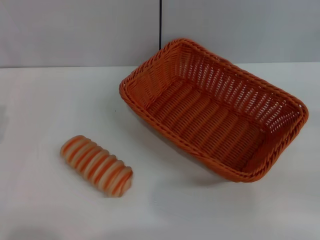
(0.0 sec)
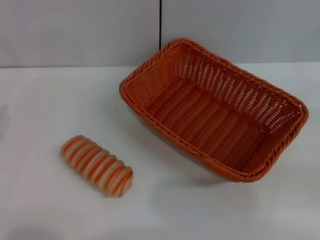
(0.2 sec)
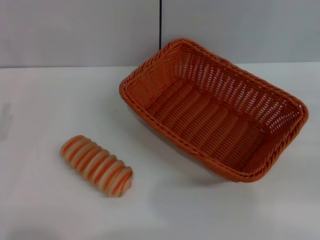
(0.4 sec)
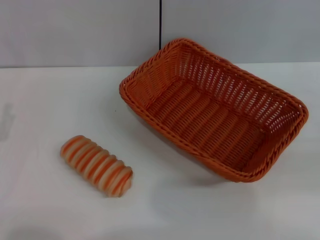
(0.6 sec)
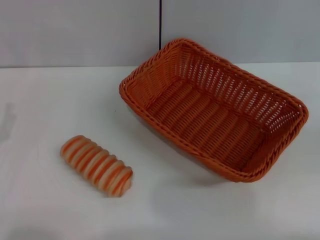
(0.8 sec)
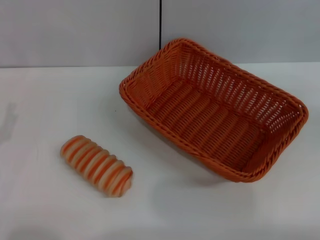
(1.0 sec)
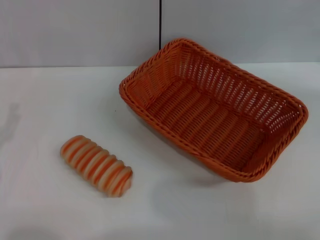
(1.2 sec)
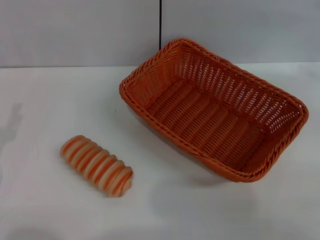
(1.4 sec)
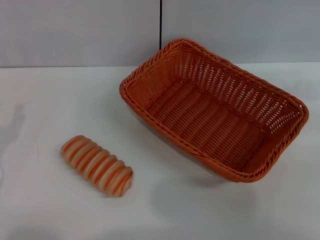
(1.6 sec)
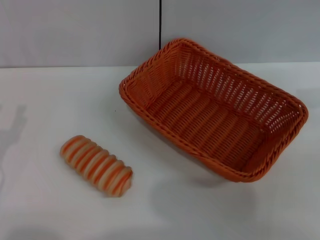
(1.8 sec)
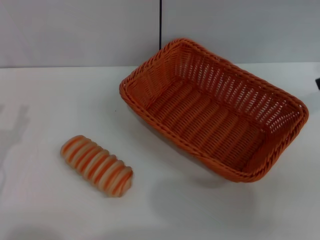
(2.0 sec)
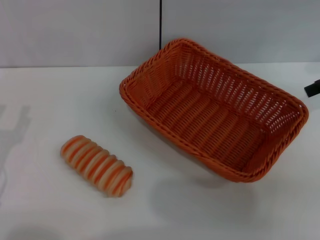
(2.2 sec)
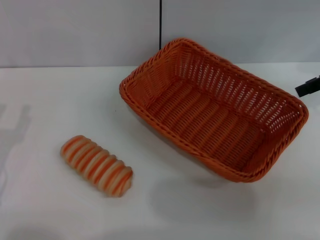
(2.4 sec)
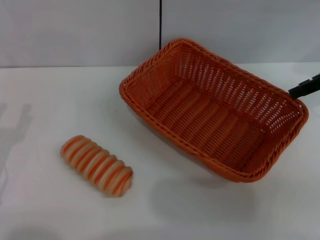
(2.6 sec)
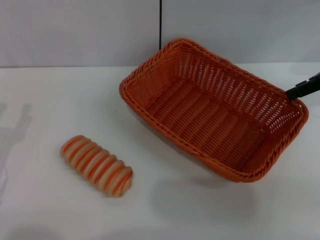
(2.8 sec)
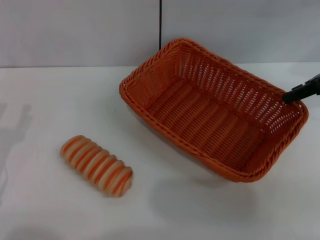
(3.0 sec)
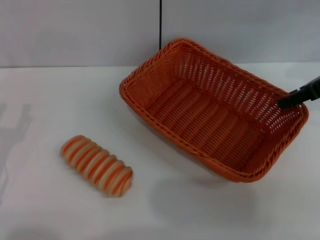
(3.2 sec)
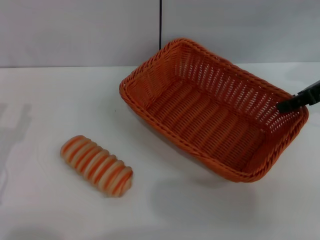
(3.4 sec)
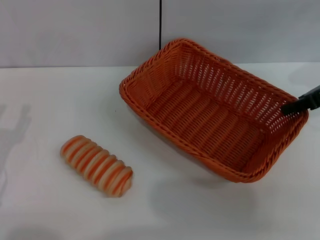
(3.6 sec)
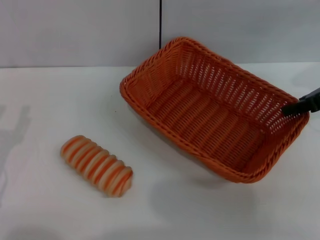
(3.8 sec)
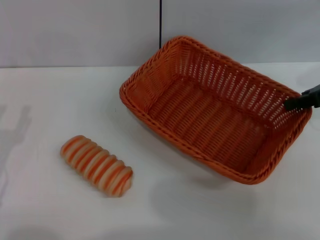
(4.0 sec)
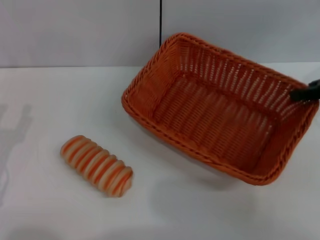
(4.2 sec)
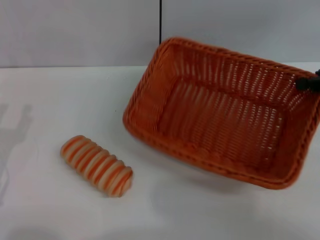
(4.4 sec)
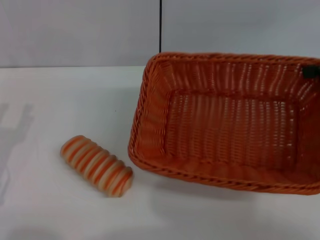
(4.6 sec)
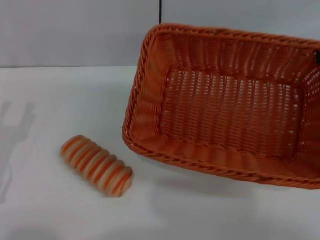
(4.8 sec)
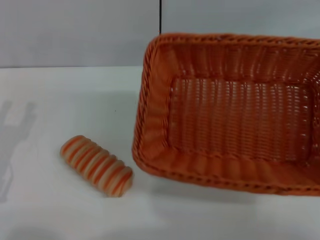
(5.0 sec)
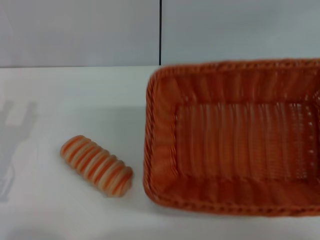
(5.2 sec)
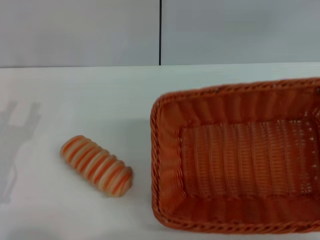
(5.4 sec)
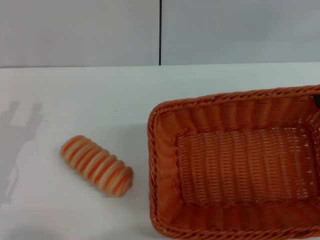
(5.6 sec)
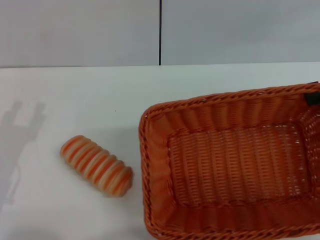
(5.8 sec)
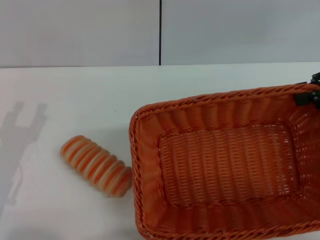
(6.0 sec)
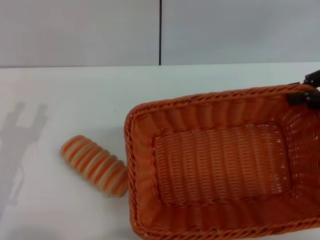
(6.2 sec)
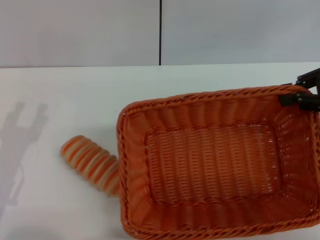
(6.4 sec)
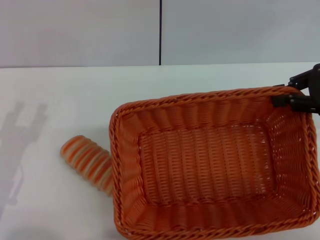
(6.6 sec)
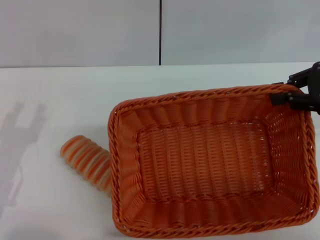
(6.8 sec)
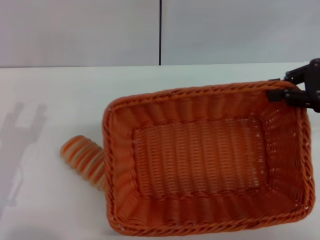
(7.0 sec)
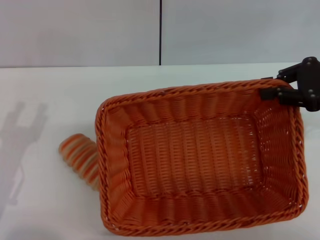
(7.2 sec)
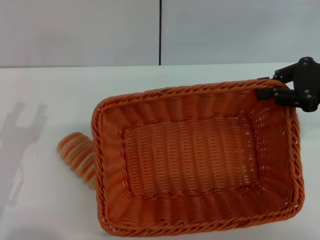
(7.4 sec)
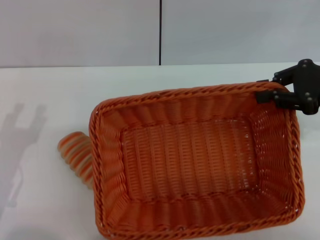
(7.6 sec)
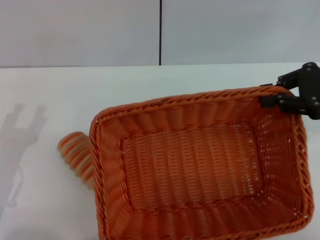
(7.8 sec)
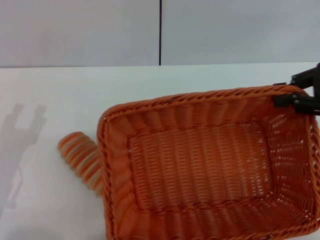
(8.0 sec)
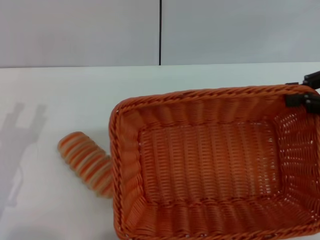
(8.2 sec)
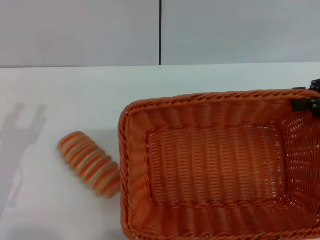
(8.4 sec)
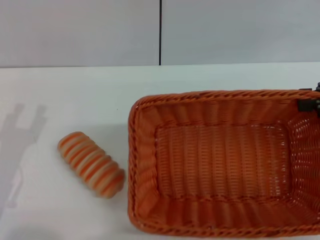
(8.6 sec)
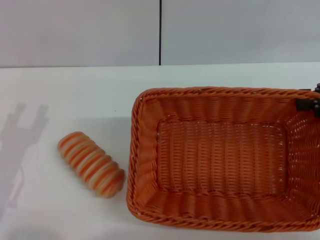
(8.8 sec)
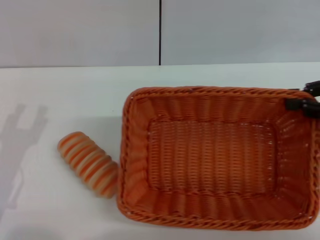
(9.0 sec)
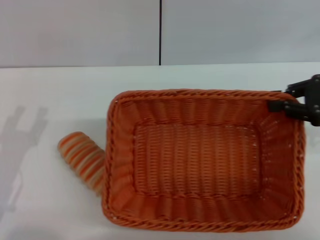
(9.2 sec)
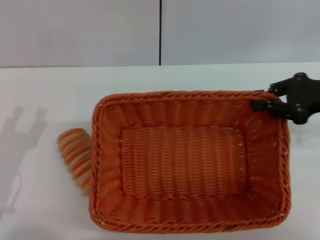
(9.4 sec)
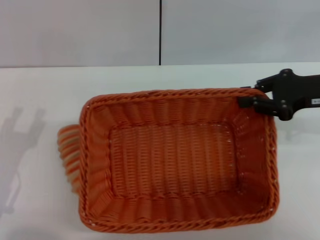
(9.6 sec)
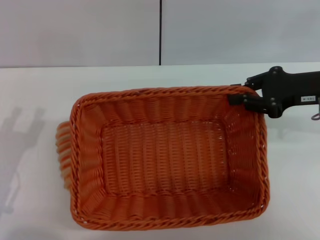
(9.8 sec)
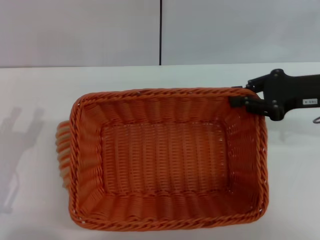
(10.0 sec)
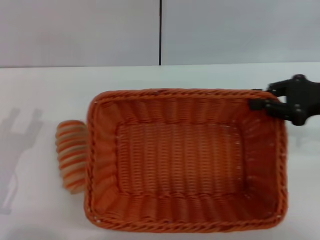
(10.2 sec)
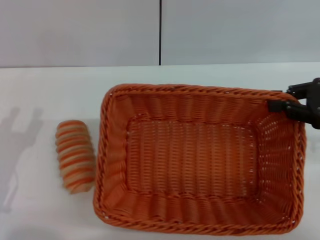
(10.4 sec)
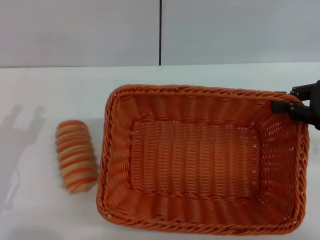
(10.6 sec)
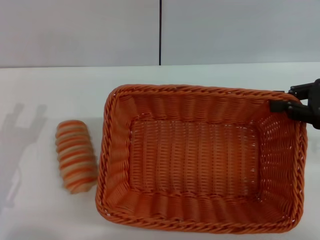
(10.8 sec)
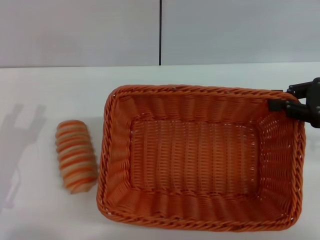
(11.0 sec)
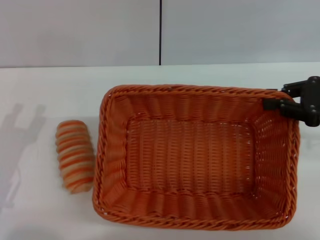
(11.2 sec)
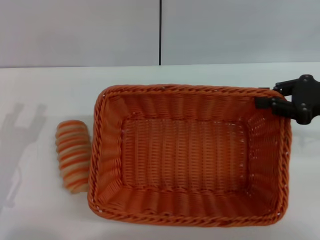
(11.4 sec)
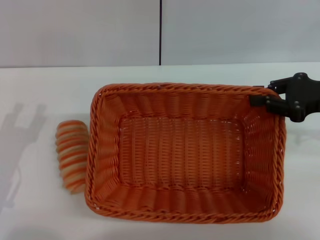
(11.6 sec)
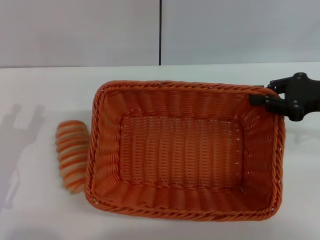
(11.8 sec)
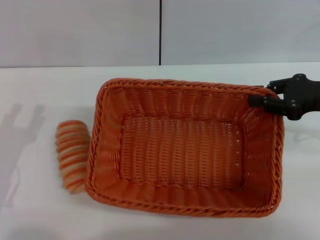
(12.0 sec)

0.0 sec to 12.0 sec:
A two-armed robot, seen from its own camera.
Step, 0.0 sec to 4.6 sec: Pick up the light basket with the right gripper.
0.0 sec to 1.6 sec: The right gripper moves forward and upward, approximately 15 cm.
1.6 sec to 3.0 sec: The right gripper moves to the left, about 5 cm.
3.0 sec to 4.4 sec: The right gripper moves roughly 5 cm, and closes.
6.0 sec to 7.6 sec: There are only small adjustments of the grippers.
7.6 sec to 9.0 sec: The right gripper shifts by about 5 cm.
10.4 sec to 12.0 sec: There are only small adjustments of the grippers.

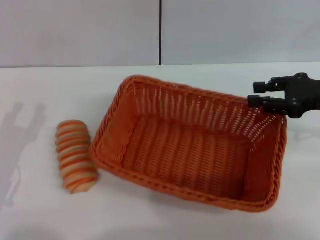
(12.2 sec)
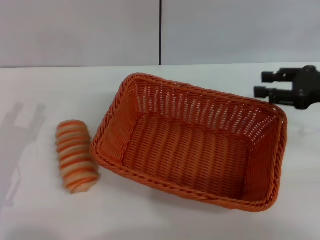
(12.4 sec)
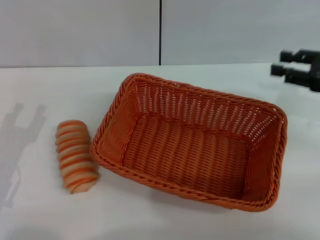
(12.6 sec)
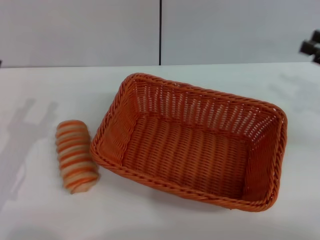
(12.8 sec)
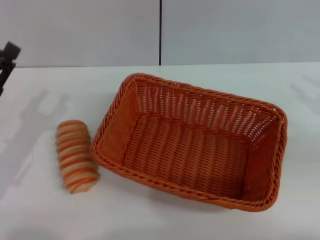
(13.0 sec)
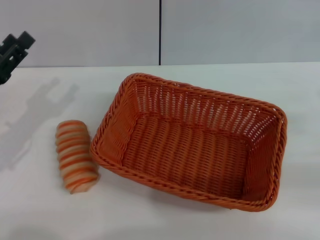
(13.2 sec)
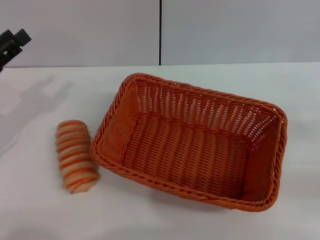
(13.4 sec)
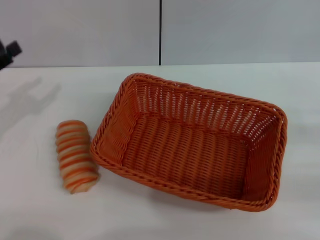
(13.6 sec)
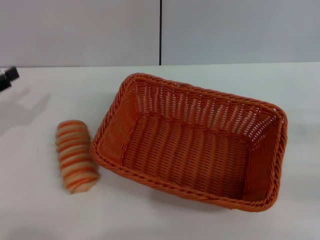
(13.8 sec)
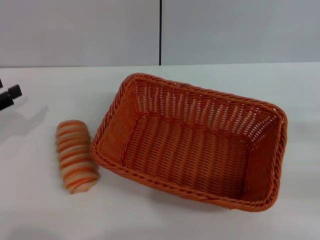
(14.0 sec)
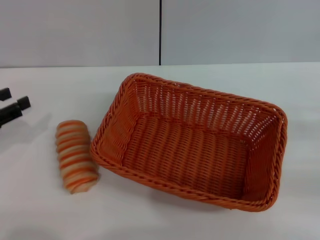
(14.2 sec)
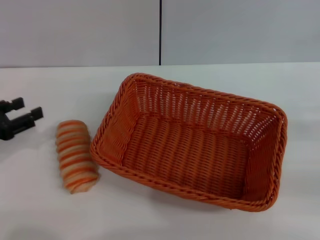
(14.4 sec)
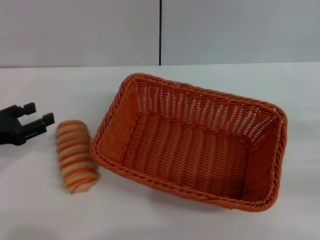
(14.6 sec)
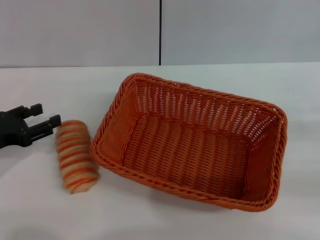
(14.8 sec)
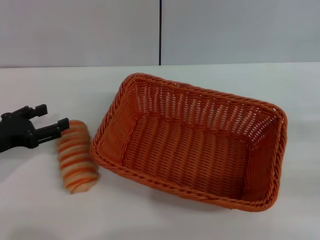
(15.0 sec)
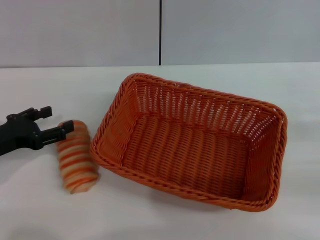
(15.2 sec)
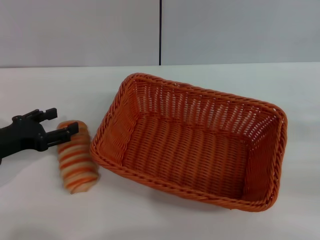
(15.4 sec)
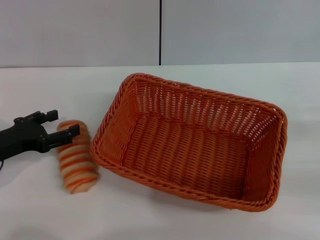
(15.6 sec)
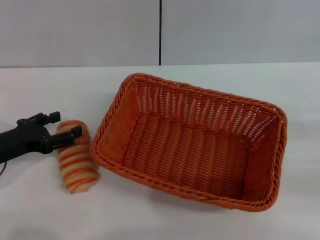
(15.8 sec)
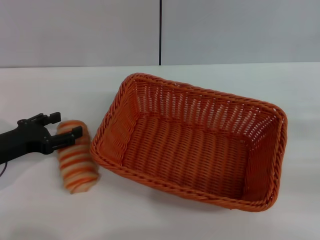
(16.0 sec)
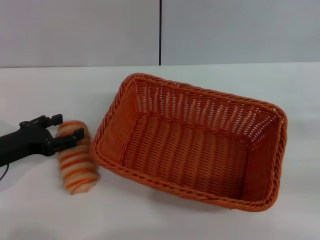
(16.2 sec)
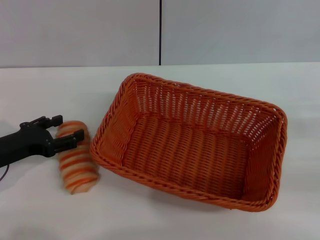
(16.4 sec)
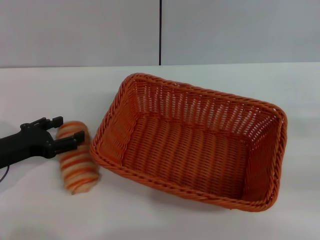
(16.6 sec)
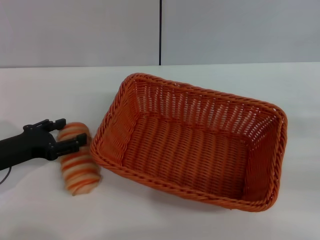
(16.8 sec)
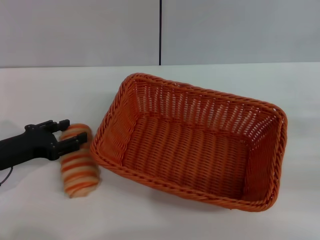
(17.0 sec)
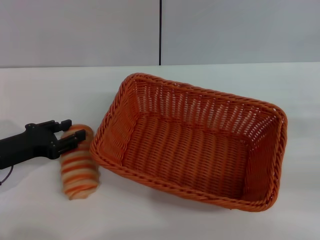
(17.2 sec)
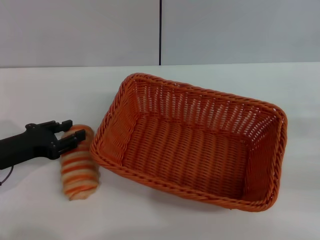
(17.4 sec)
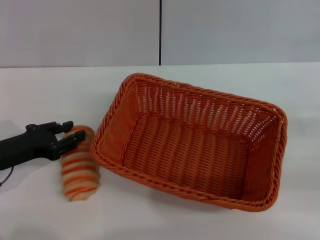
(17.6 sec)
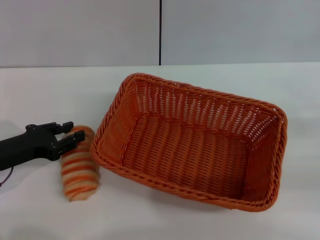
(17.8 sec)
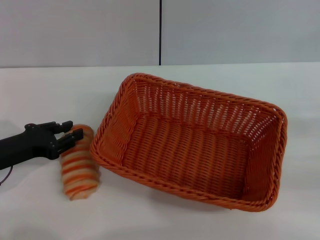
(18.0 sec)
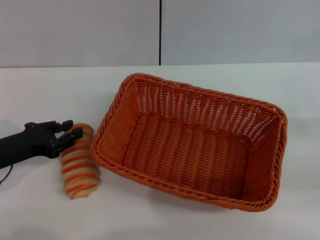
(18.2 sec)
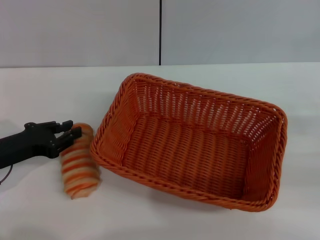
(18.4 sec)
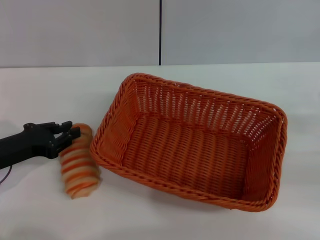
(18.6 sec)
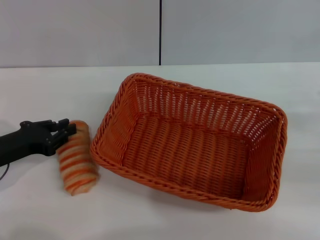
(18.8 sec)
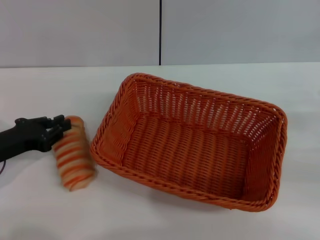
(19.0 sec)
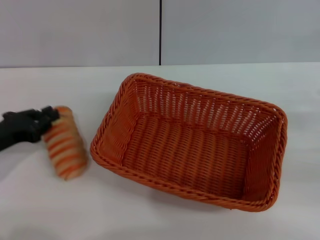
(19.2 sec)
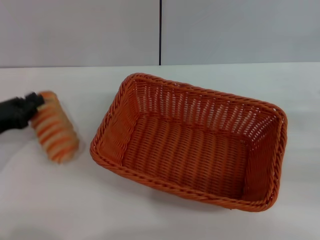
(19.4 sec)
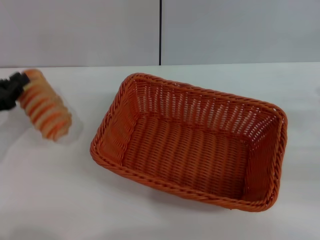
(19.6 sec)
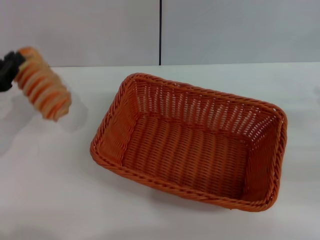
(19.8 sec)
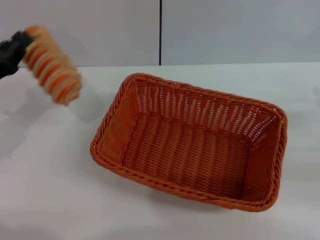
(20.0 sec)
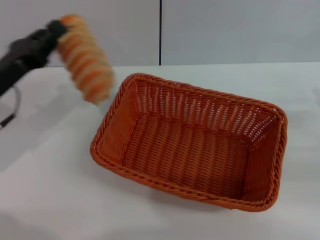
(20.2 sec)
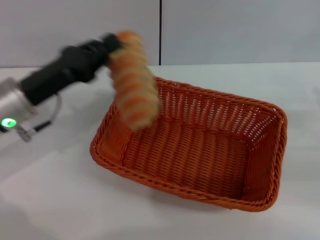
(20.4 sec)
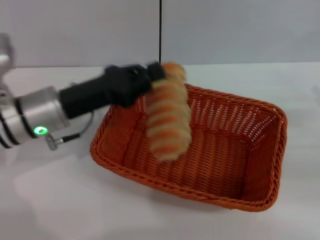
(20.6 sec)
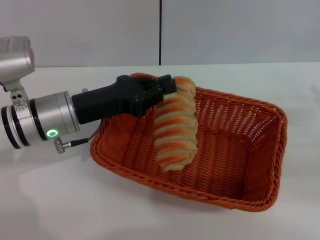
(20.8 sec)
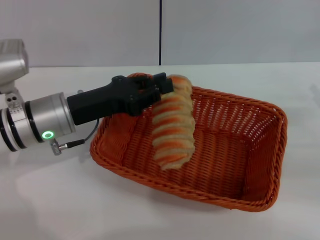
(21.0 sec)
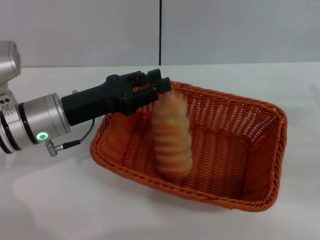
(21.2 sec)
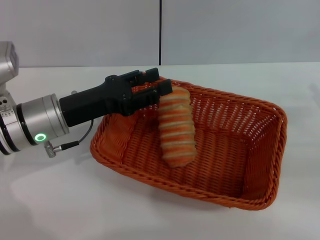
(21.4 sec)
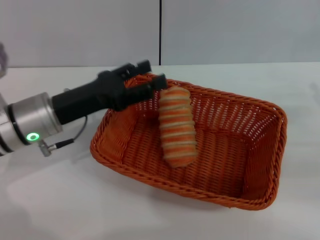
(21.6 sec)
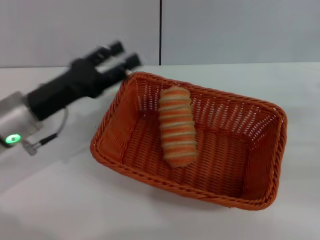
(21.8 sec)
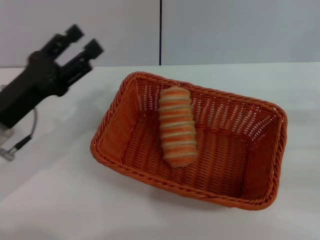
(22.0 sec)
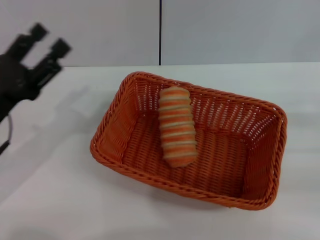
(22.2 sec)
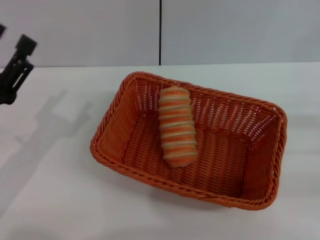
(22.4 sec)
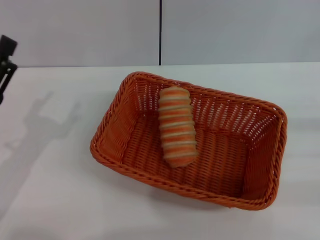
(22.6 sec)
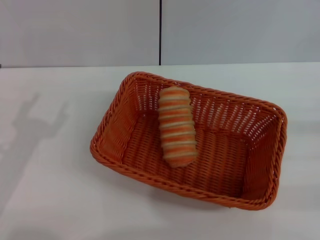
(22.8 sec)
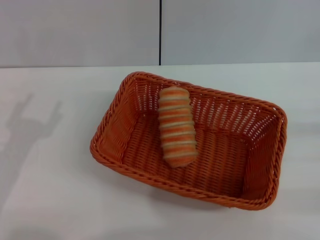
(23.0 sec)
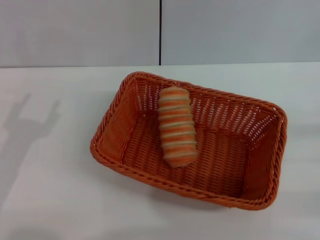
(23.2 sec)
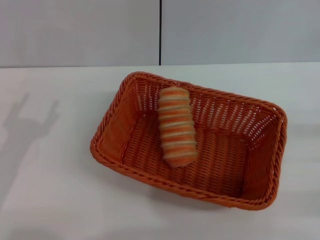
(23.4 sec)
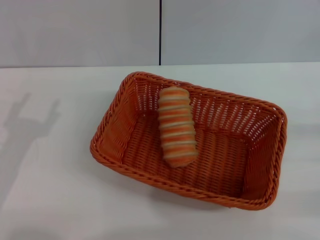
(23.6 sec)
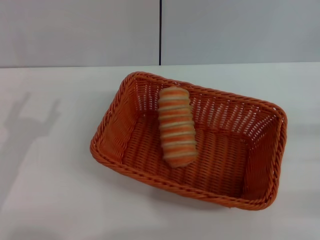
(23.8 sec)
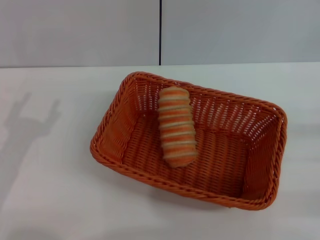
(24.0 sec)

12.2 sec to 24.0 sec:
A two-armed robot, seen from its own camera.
Step, 12.8 sec to 20.0 sec: Pick up the long bread with the left gripper.
Step, 20.2 sec to 22.0 sec: Place the long bread into the light basket with the left gripper.
12.2 sec to 13.6 sec: The right gripper heads backward and to the right, covering some 15 cm, and opens, while the left gripper goes some 15 cm forward, upward and to the left.
13.6 sec to 15.2 sec: The left gripper ends up roughly 5 cm from where it was.
15.2 sec to 16.6 sec: The grippers stay close to where they were, moving slightly.
16.6 sec to 18.2 sec: The left gripper closes up.
19.6 sec to 21.0 sec: The left gripper is displaced to the right by about 15 cm.
21.0 sec to 22.6 sec: The left gripper travels backward and to the left by some 15 cm, and opens up.
22.6 sec to 24.0 sec: The grippers stay close to where they were, moving slightly.
